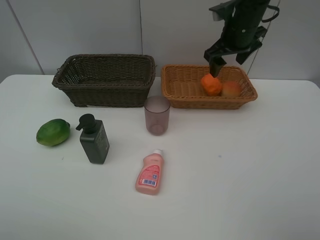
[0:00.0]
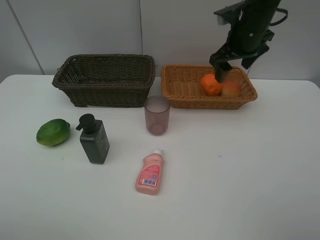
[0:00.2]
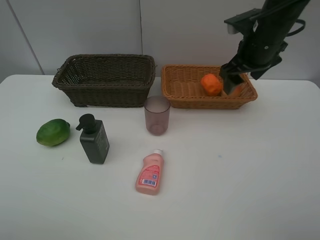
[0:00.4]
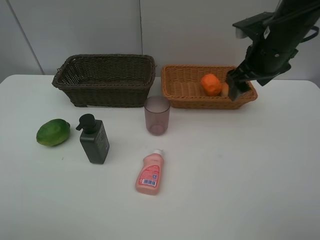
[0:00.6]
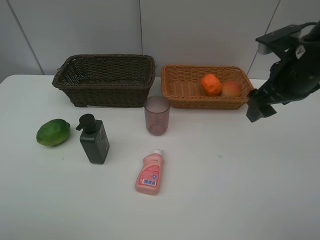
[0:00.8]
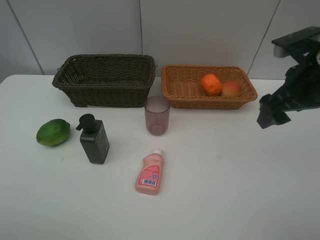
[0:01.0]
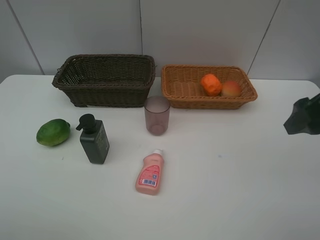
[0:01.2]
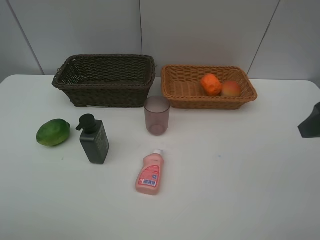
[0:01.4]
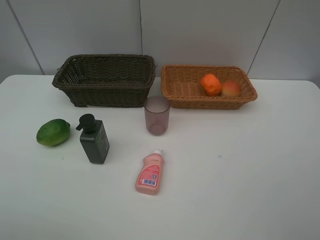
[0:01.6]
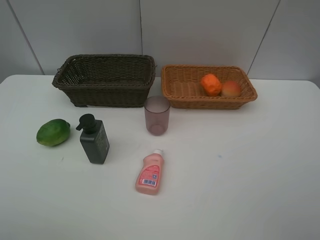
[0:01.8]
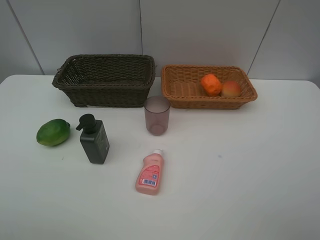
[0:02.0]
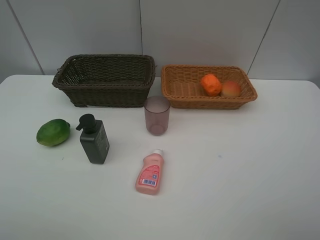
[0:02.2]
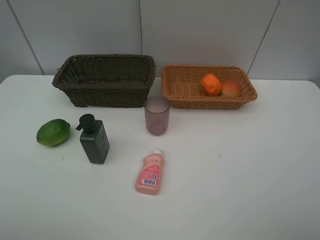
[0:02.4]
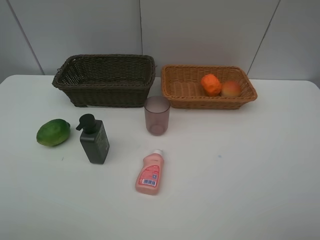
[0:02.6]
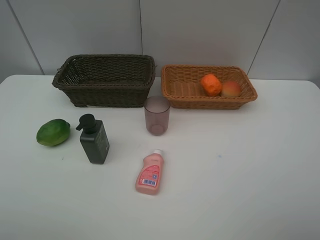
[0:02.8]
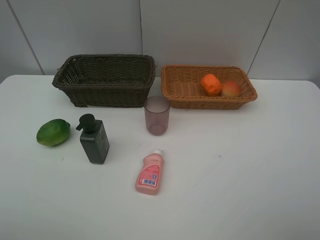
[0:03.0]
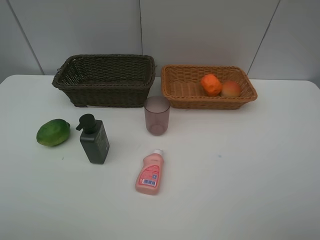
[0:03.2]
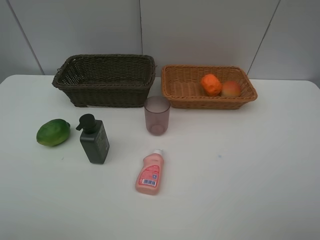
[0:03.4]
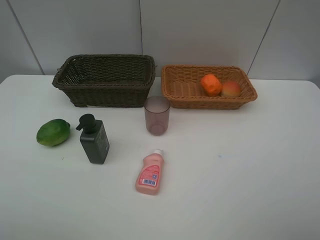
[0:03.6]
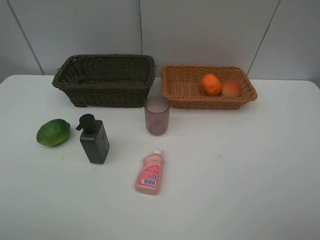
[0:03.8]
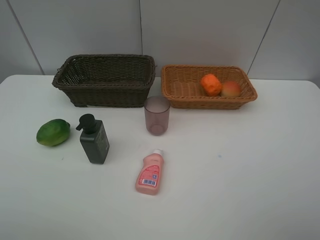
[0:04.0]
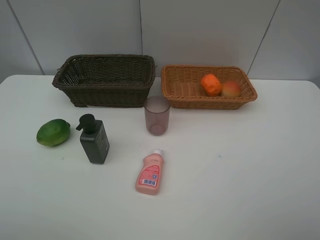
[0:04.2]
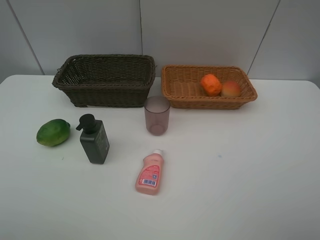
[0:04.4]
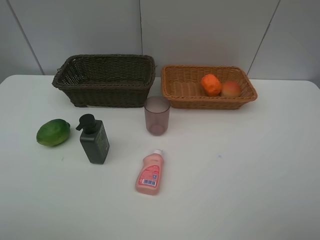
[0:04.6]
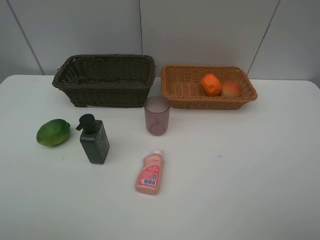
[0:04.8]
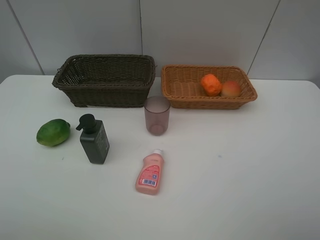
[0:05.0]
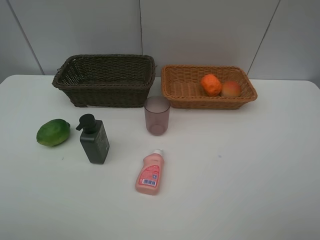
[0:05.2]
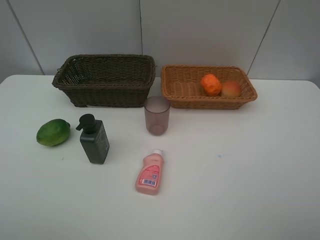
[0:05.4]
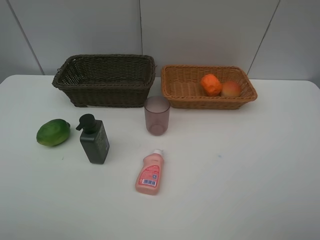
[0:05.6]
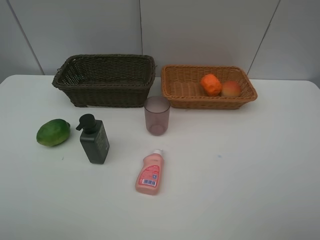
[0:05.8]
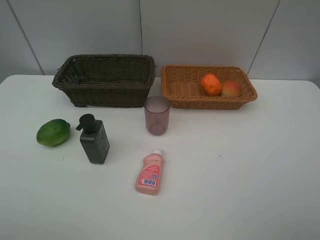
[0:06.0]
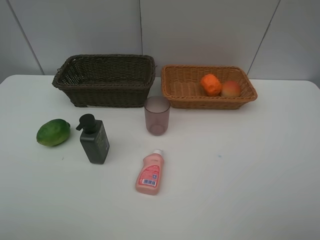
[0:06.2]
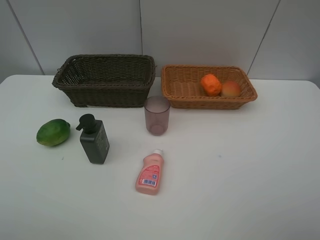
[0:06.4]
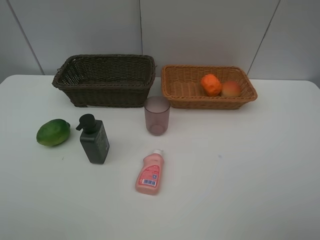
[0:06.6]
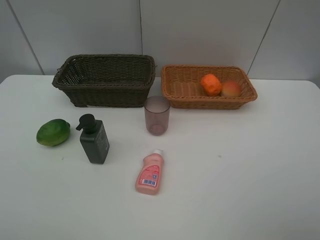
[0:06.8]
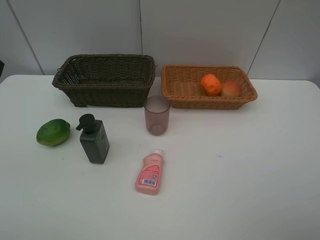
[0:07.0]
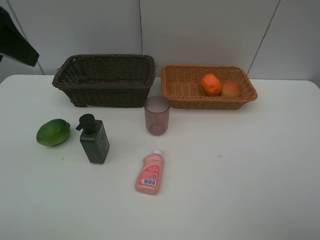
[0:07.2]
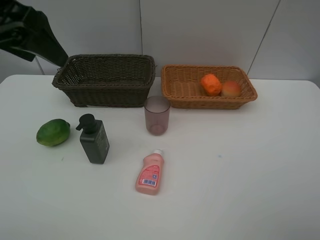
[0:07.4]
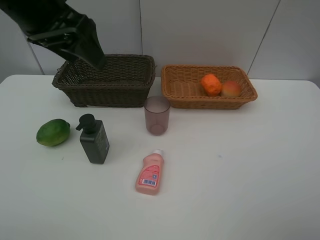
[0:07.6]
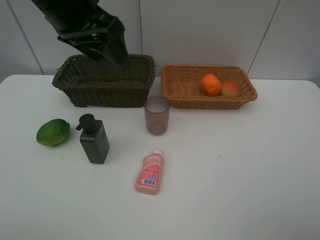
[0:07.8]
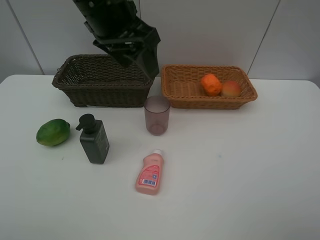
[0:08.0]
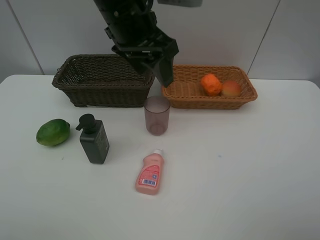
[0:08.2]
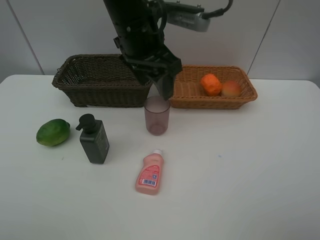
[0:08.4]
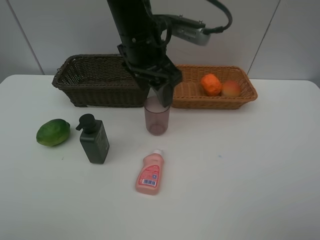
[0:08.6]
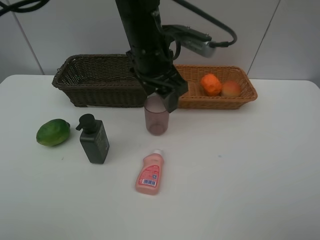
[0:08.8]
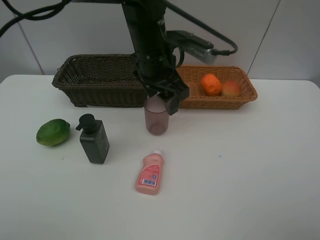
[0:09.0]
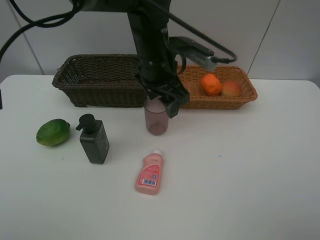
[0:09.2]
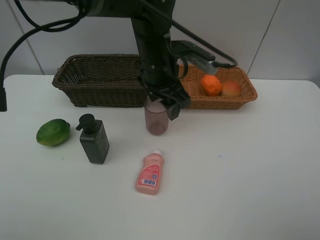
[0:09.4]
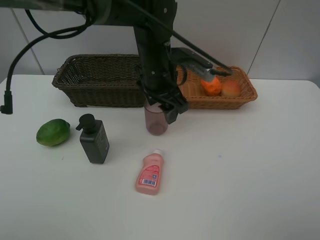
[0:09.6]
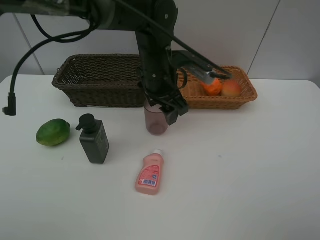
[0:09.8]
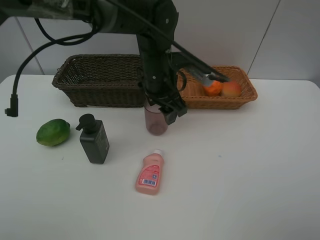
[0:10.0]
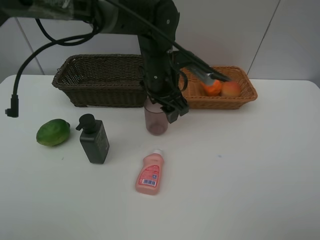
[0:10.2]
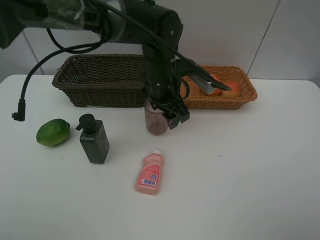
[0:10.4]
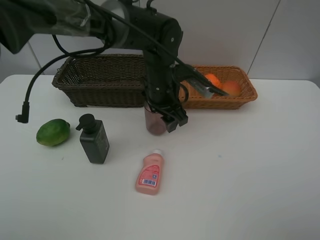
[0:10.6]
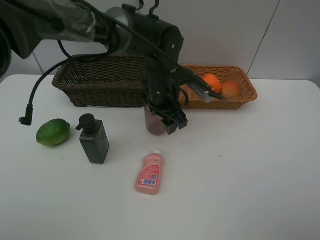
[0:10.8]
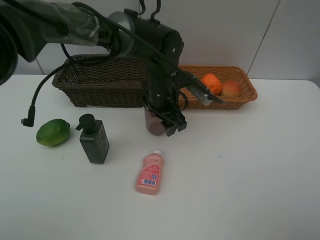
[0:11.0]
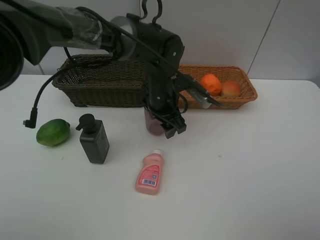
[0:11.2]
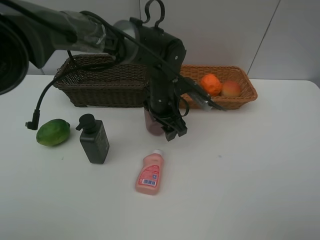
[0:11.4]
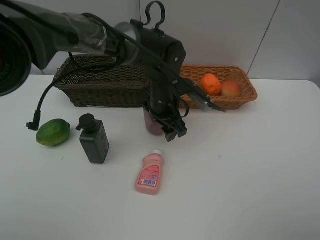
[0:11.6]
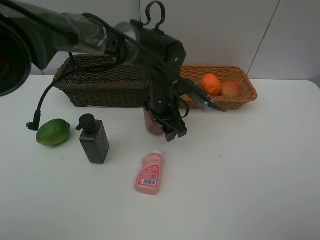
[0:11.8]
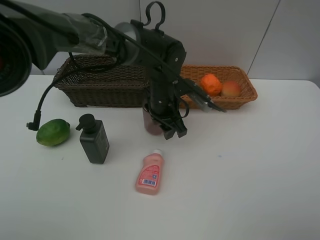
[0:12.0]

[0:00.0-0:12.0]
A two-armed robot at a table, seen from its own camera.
Task of the whole recording: place multiple objects separately in different baskets.
0:00.0 to 0:01.6: The right gripper goes roughly 30 cm backward.
0:03.0 to 0:06.0: Both grippers stay put.
0:06.0 to 0:07.6: The left gripper heads forward and to the right, covering some 30 cm.
0:07.6 to 0:09.0: The left gripper is displaced to the right and downward by approximately 20 cm.
0:09.0 to 0:10.4: The left gripper heads downward, covering approximately 5 cm.
0:10.4 to 0:12.0: The grippers move only a little.

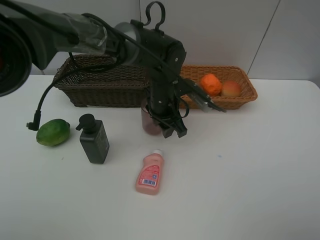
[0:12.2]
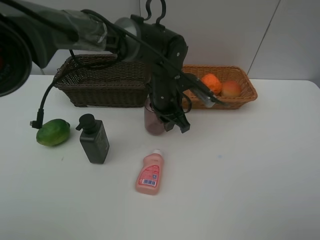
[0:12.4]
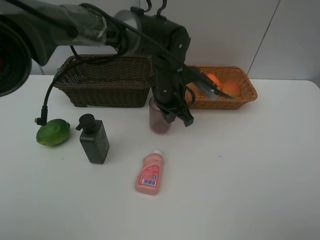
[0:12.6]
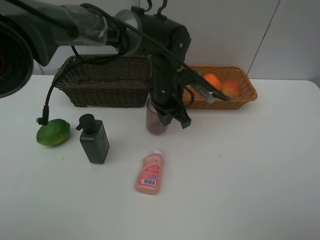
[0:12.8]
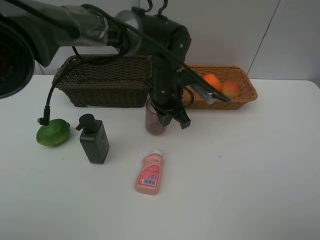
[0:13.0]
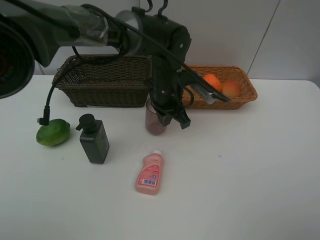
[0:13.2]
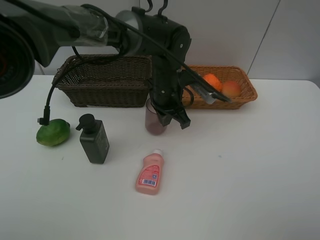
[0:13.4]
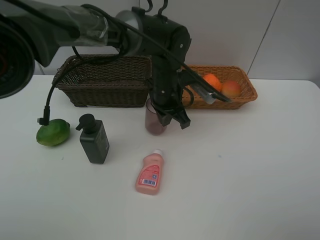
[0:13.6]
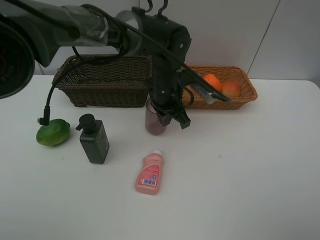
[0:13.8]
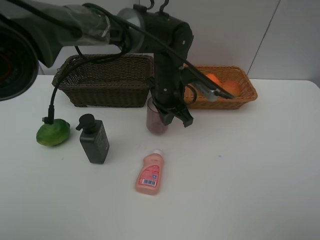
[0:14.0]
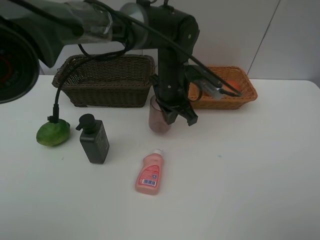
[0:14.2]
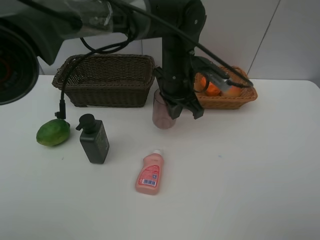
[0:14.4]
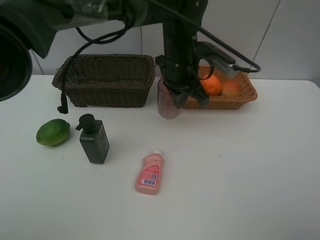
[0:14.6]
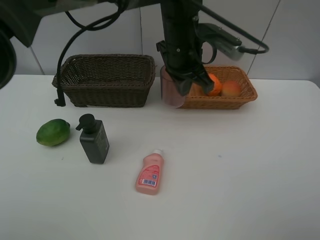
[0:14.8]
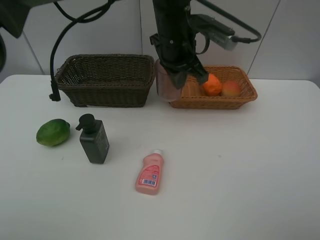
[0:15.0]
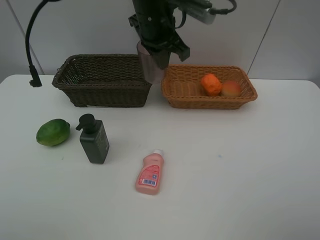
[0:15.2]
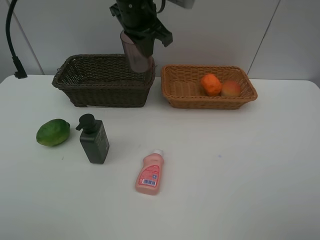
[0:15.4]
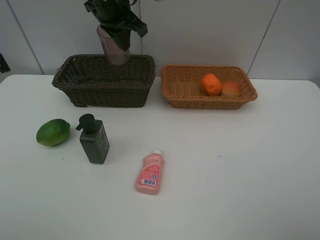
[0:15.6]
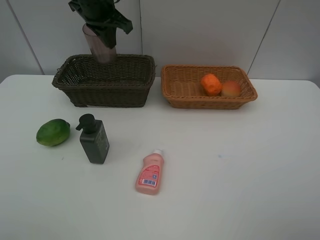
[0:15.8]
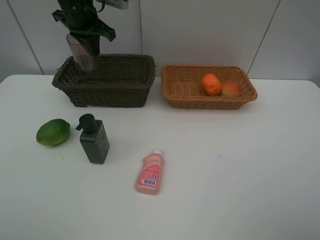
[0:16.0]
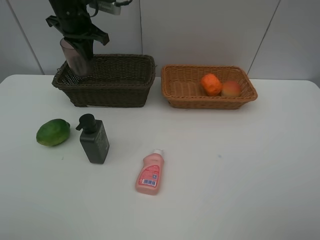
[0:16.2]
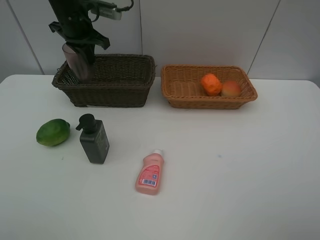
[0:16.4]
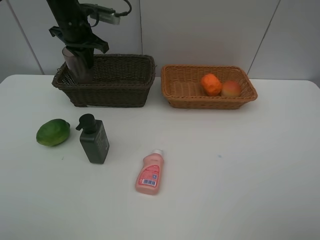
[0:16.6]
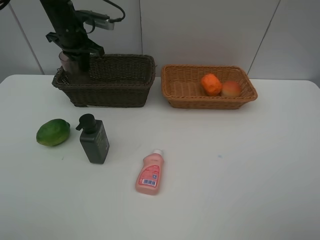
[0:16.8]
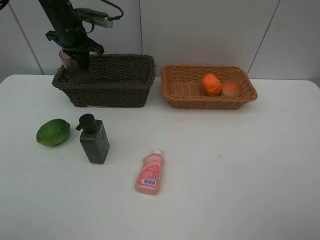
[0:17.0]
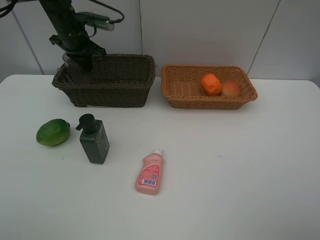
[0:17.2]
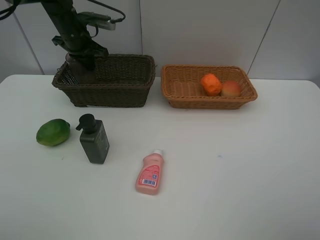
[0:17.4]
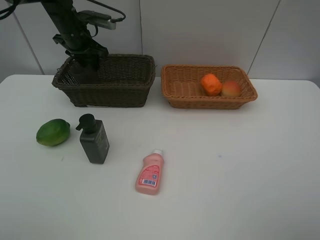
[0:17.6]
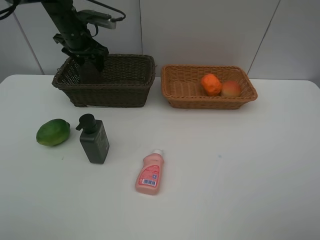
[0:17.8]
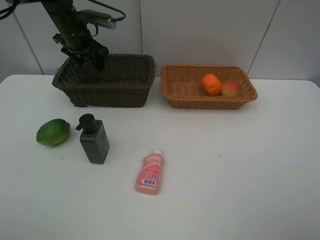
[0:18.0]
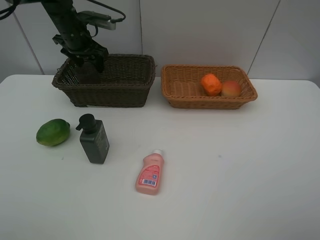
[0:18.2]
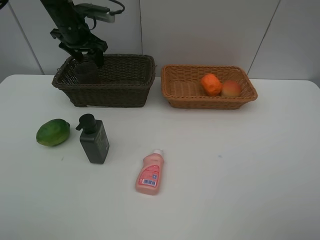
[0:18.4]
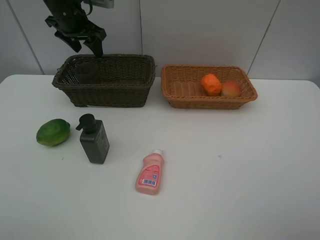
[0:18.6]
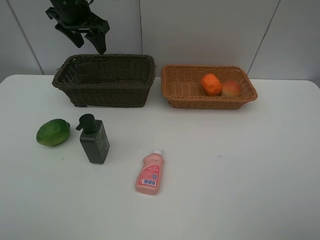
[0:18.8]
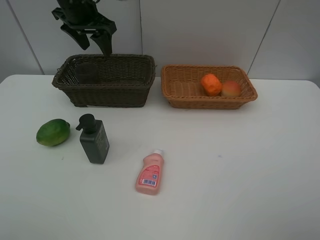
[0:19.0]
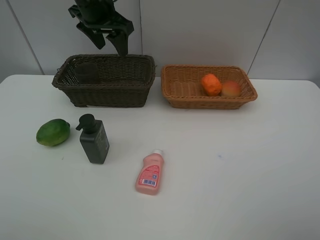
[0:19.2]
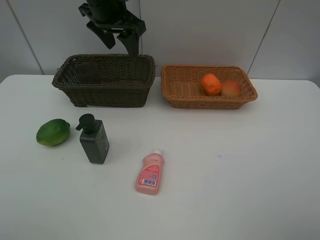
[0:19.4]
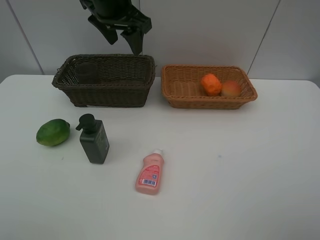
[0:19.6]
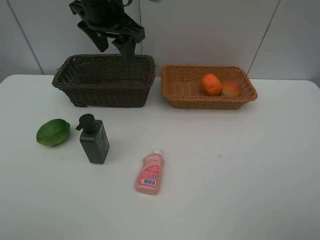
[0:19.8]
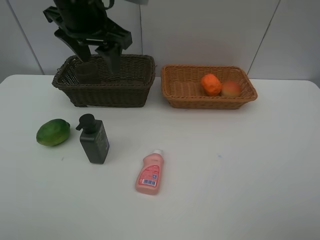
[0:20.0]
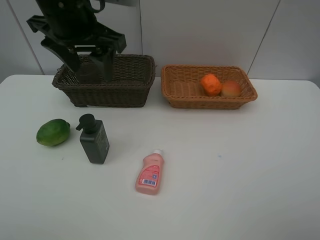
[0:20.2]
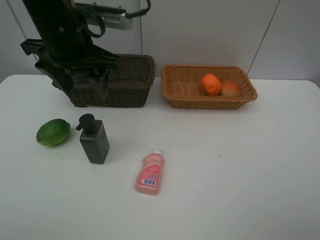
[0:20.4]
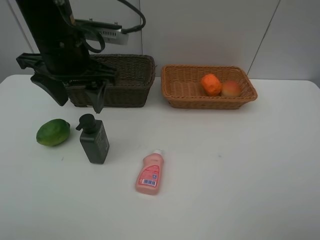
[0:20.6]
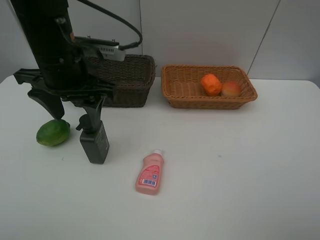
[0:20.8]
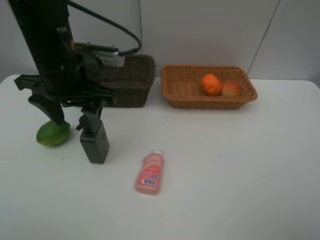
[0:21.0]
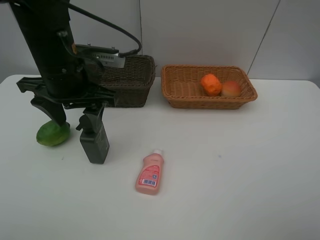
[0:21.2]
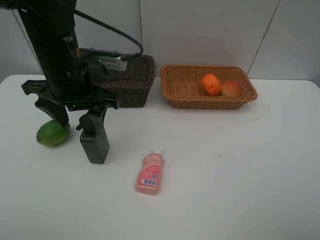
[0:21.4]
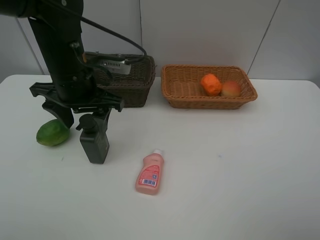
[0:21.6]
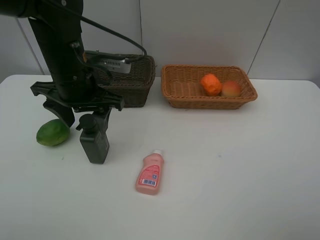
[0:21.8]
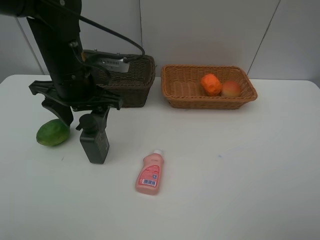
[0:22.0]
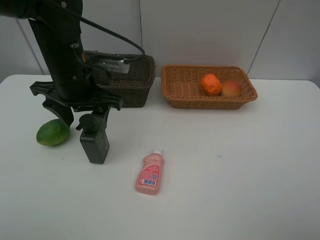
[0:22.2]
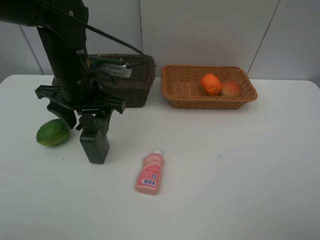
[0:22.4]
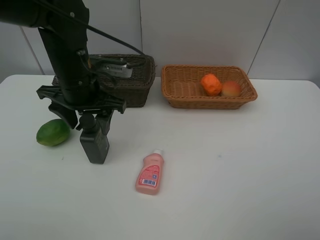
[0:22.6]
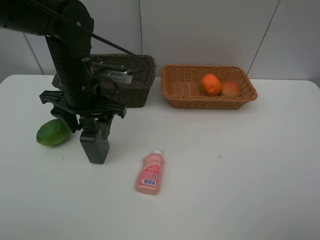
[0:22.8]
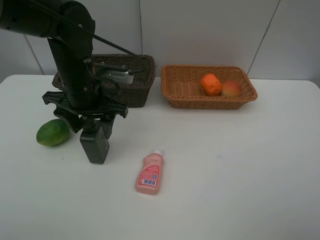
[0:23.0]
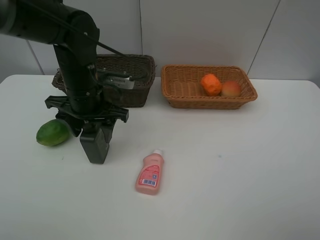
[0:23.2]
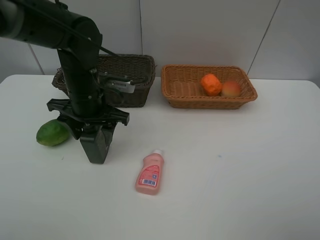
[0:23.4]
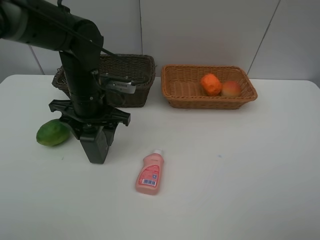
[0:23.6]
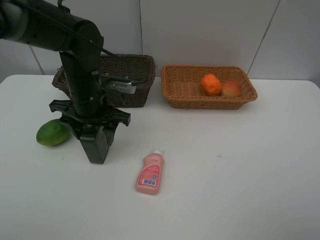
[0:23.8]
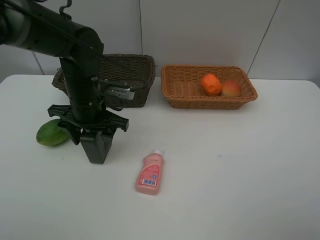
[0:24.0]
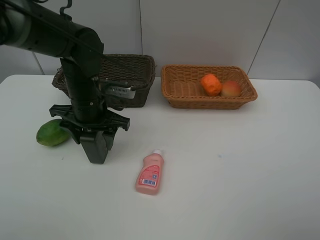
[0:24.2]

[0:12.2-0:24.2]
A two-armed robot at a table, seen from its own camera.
Task of the whole recording: place multiple objects separately in different baskets.
0:12.2 to 0:13.8: The left gripper closes its fingers.
0:13.8 to 0:15.2: The left gripper heads upward, covering roughly 15 cm.
0:15.2 to 0:16.6: The left gripper is displaced to the left and forward by some 20 cm.
0:16.6 to 0:18.2: The left gripper opens its fingers.
0:18.2 to 0:19.8: The left gripper moves backward, to the right and upward, about 20 cm.
0:19.8 to 0:21.2: The left gripper travels backward and downward by some 10 cm.
0:21.2 to 0:22.6: The grippers make only small movements.
0:22.6 to 0:24.2: The left gripper shifts some 5 cm downward.
